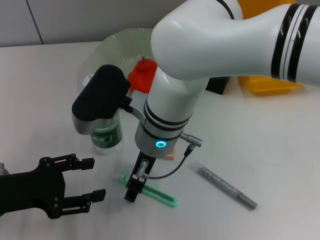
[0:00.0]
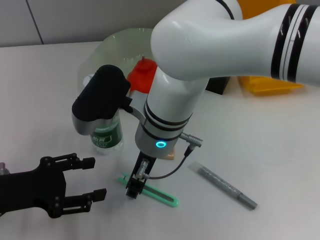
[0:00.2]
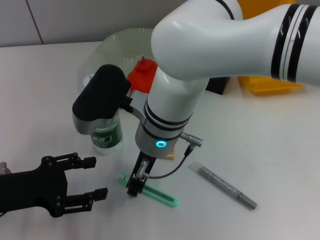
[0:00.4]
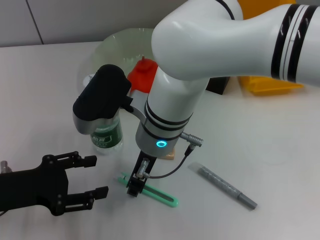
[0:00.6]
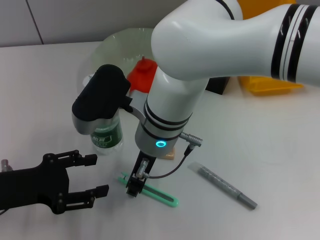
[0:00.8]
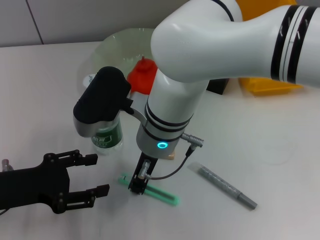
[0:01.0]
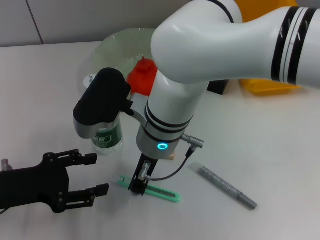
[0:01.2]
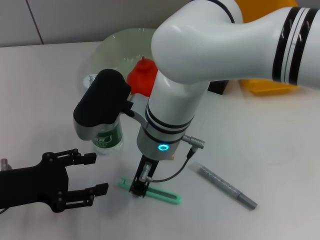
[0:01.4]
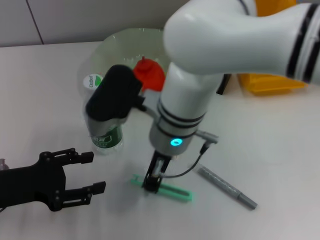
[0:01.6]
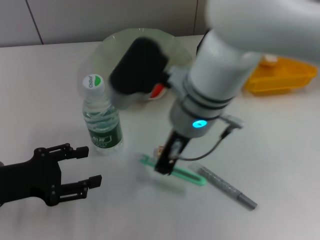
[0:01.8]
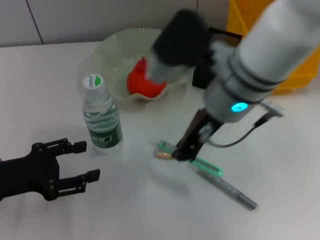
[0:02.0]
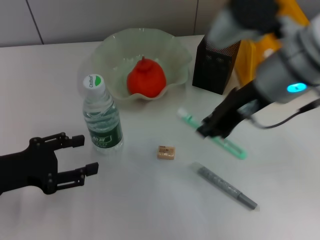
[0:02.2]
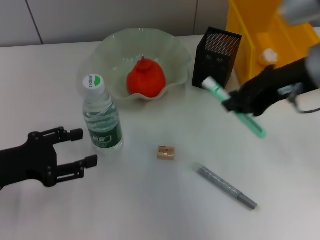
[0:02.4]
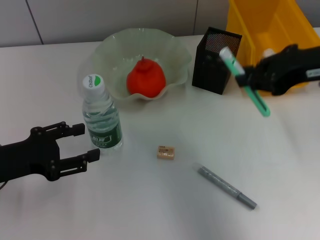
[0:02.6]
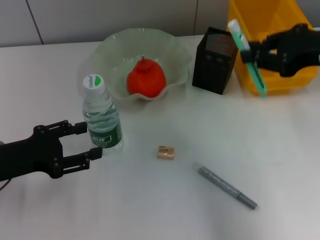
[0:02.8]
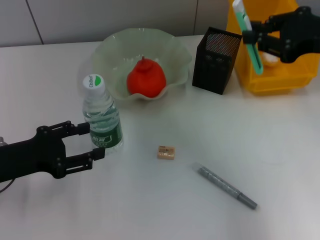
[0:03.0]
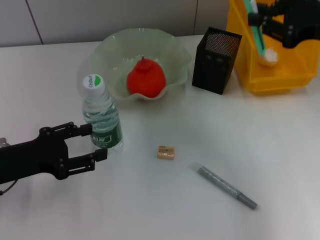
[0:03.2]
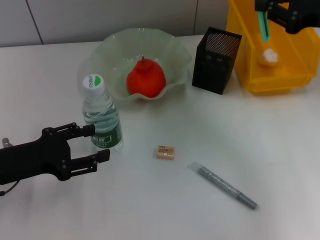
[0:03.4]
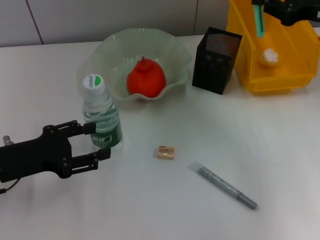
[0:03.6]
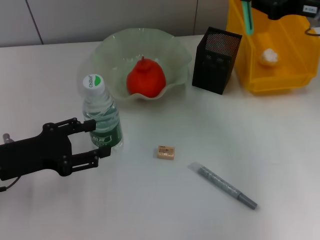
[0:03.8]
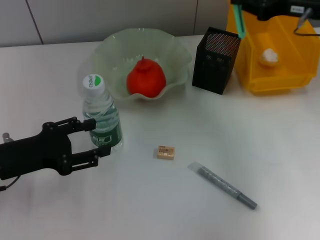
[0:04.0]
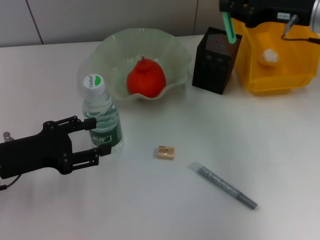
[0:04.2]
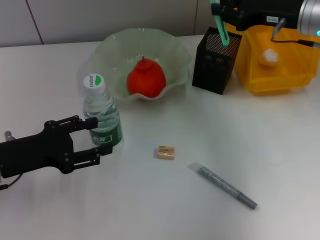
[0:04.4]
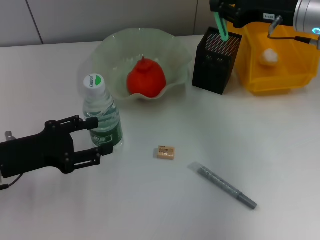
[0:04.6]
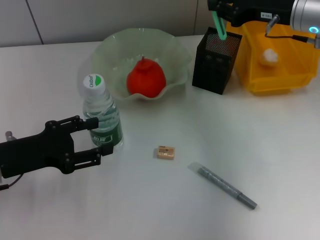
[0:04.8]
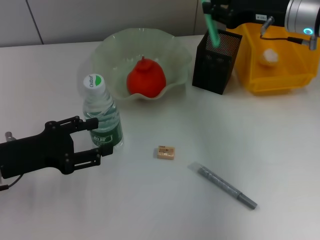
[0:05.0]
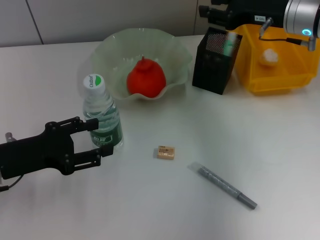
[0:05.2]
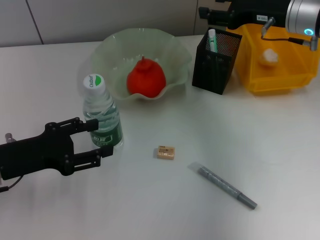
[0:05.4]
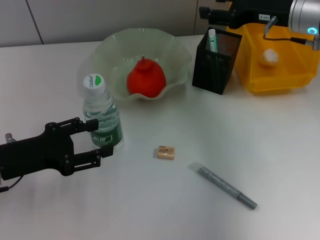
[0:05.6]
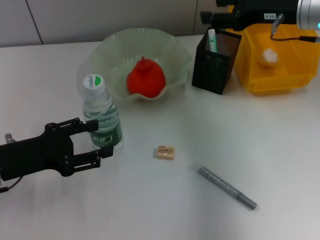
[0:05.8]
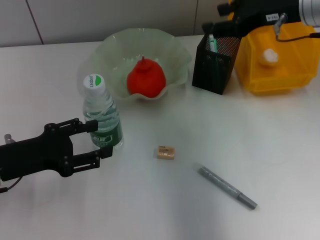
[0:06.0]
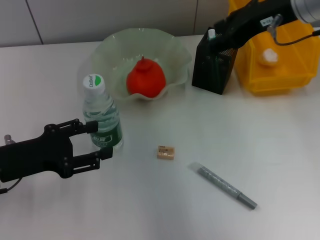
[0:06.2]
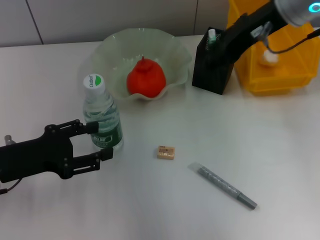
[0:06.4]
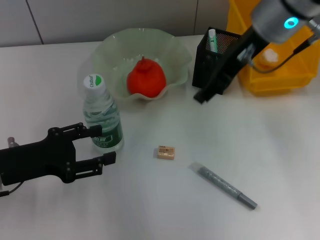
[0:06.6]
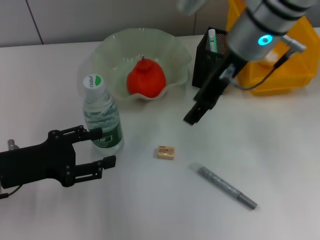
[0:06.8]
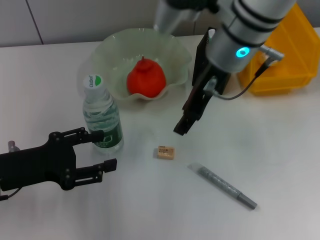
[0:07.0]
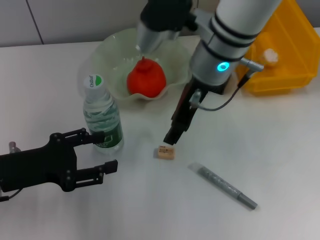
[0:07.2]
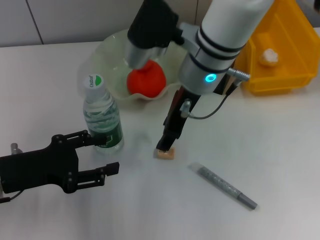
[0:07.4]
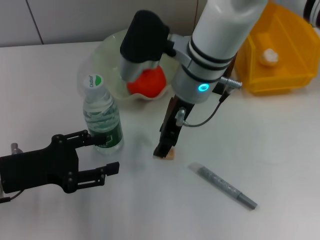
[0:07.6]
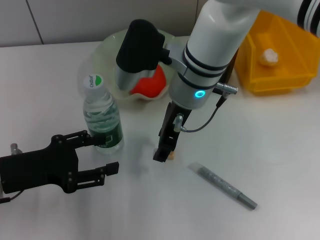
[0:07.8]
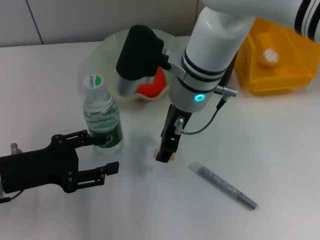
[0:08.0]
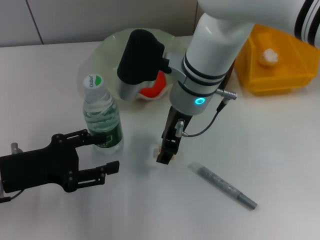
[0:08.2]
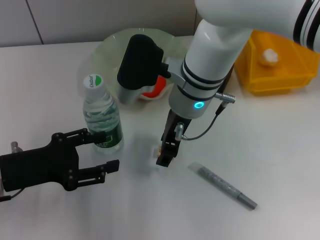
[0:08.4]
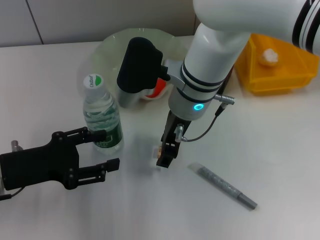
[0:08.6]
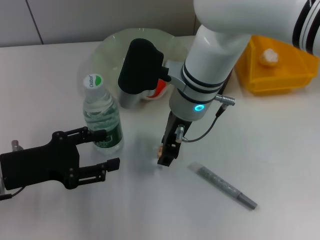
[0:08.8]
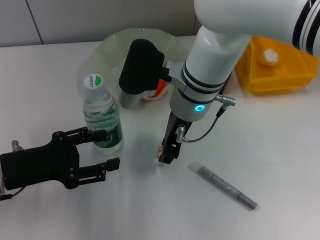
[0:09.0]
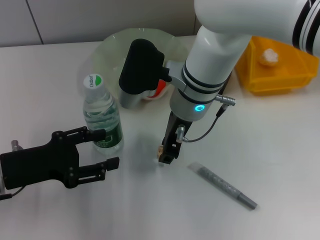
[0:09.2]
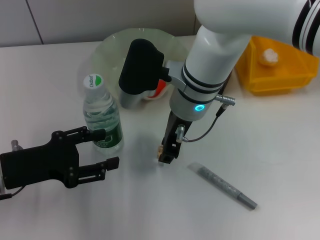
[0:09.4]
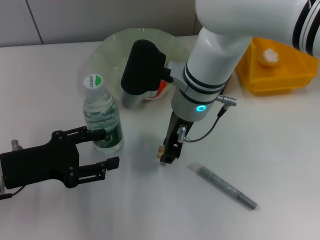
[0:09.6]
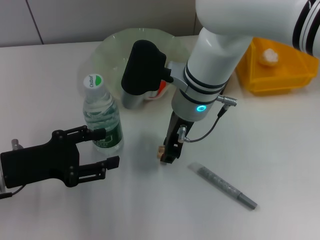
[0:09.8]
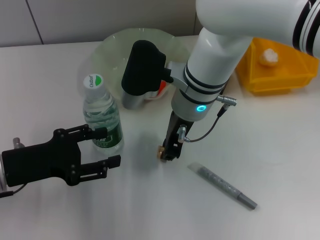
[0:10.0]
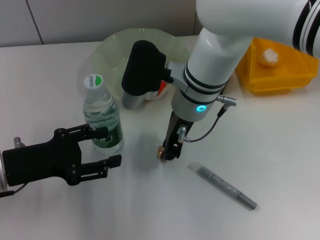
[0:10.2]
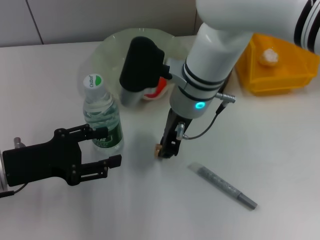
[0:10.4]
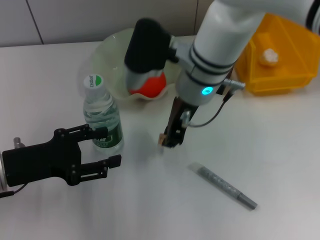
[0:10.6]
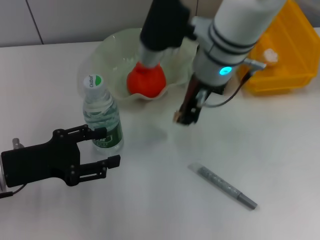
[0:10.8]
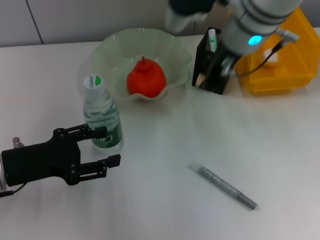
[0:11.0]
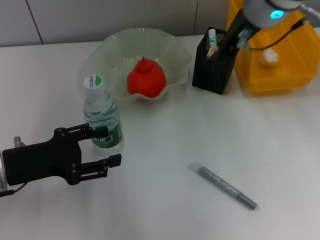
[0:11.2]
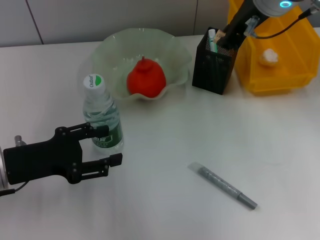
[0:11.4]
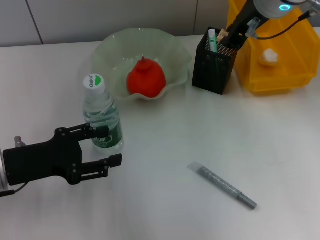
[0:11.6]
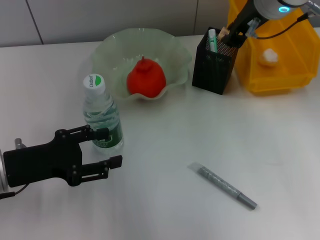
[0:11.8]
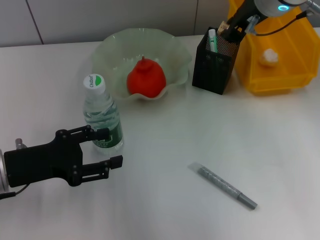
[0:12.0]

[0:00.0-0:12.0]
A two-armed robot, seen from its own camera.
Step, 0:01.2 to 0:05.2: Place the blue utility knife into the pen holder with the right hand.
Step, 0:05.4 to 0:09.8: Grab the eraser with the right hand.
0:00.0 to 0:01.6: The right gripper closes up.
0:01.6 to 0:03.0: The right gripper travels to the right by some 30 cm.
0:03.0 to 0:04.4: The right gripper goes some 10 cm forward.
0:04.4 to 0:06.0: The right gripper is displaced upward by approximately 5 cm, and opens up.
0:06.0 to 0:07.6: The right gripper travels to the left by about 20 cm.
0:07.6 to 0:09.0: There are only small adjustments of the grippers.
0:09.0 to 0:10.4: The right gripper closes.
0:10.4 to 0:12.0: The right gripper heads to the right, upward and forward, covering some 15 cm.

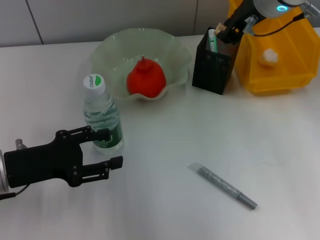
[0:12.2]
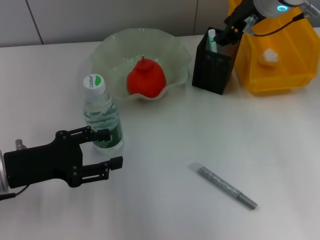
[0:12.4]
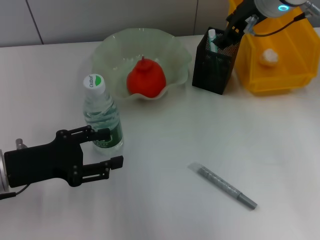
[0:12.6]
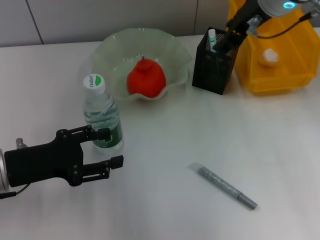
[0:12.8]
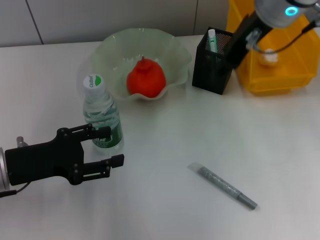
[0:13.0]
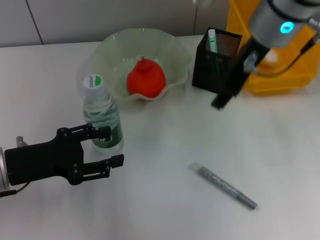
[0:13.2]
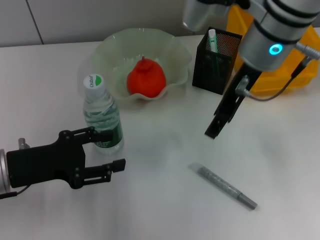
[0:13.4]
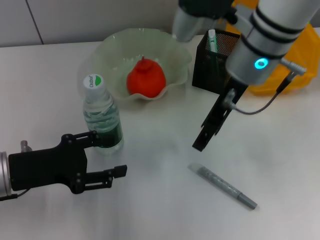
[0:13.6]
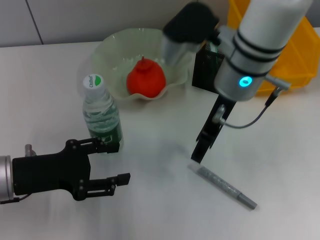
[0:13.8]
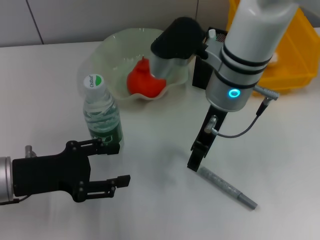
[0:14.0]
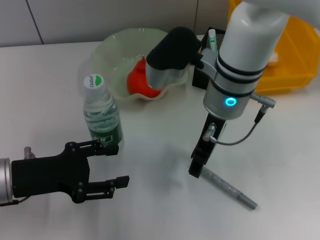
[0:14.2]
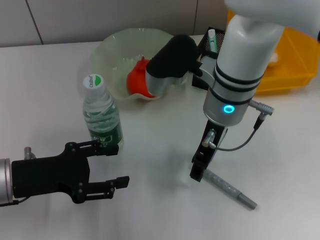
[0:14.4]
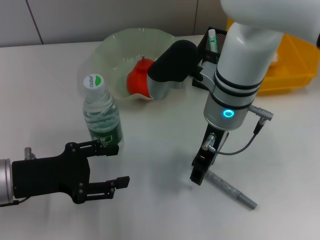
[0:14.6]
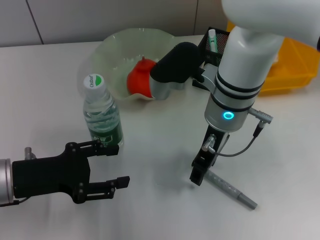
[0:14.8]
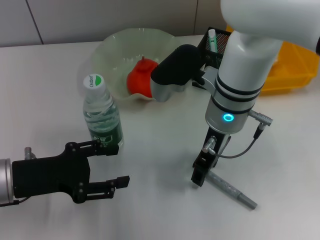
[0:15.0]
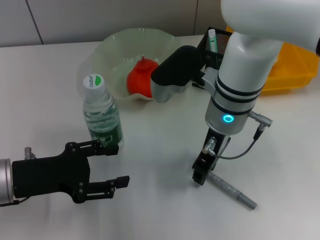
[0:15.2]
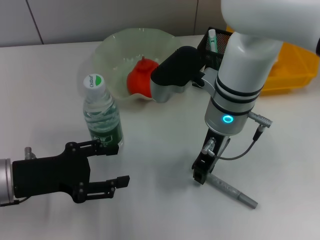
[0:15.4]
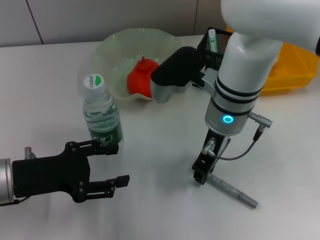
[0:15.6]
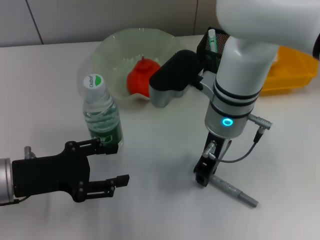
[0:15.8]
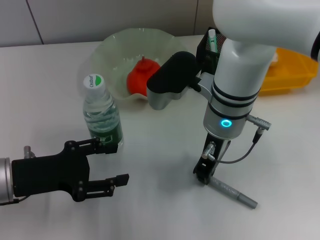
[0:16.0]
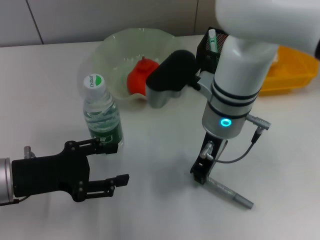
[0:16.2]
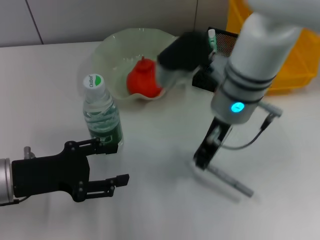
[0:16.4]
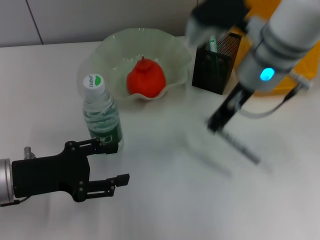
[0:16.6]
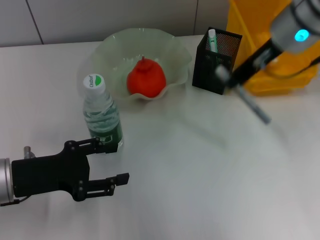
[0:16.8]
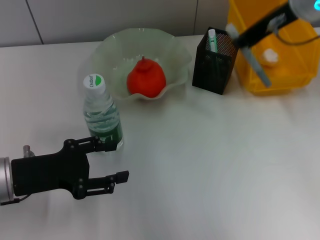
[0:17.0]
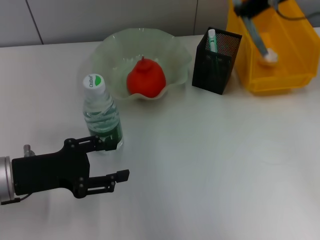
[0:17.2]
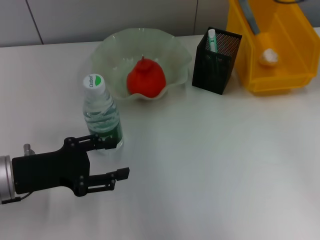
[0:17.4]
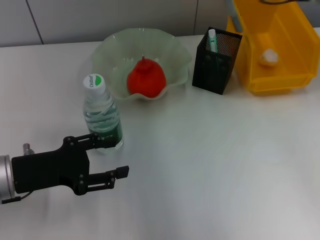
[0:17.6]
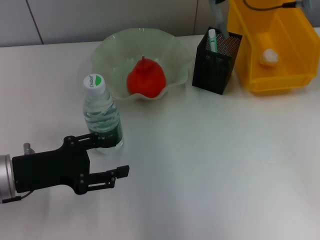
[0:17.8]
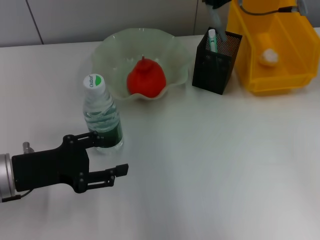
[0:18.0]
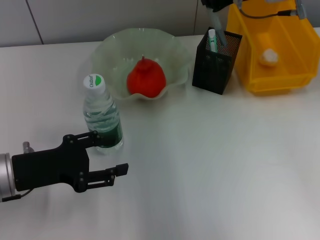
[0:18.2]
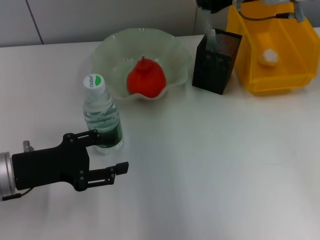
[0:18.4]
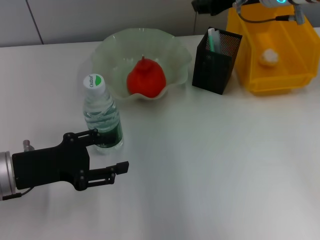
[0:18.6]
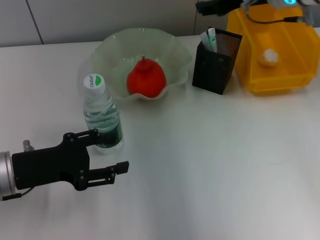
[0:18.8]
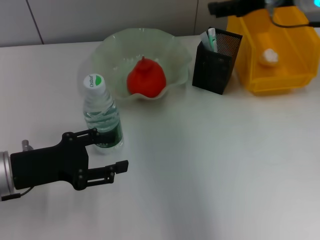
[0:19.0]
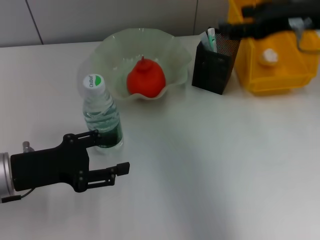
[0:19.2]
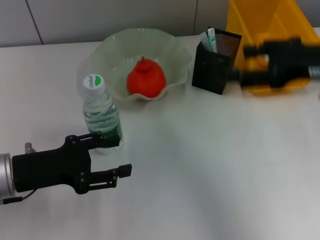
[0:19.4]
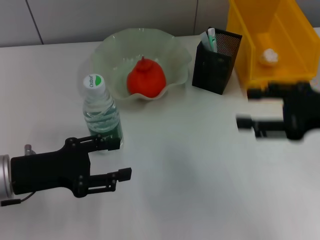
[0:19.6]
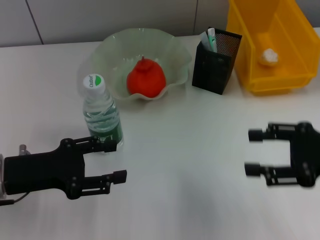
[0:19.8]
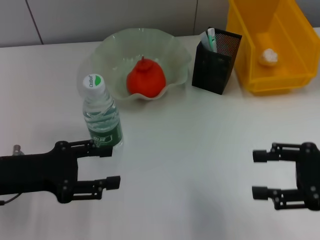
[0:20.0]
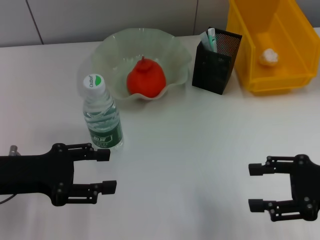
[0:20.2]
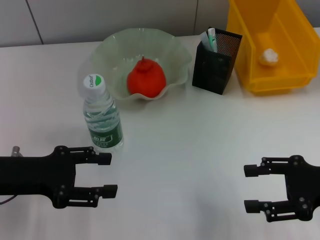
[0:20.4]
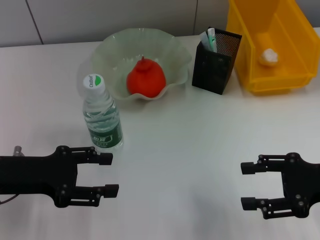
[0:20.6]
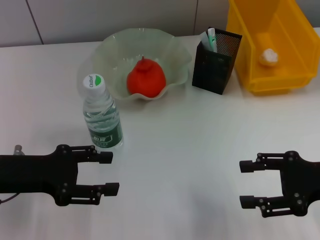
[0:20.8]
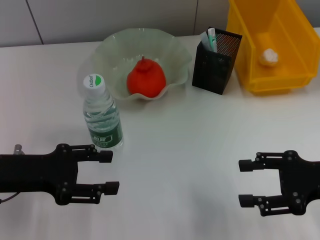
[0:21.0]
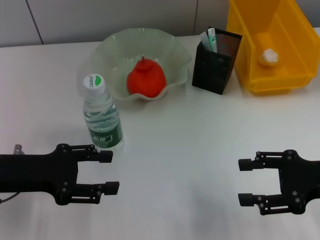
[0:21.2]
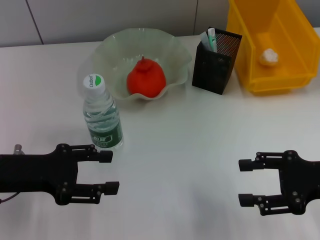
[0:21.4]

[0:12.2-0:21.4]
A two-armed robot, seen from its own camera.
Step, 0:12.6 to 0:15.2: Grab the gray glue with the right hand.
Step, 0:15.4 to 0:18.4: Place the gray glue into the pen holder with the right hand.
0:12.2 to 0:13.8: The right gripper moves to the left and backward, roughly 10 cm, and opens up.
0:13.8 to 0:15.2: The right gripper moves approximately 5 cm.
0:15.2 to 0:16.8: The right gripper moves upward and to the right, about 15 cm, and closes.
0:16.8 to 0:18.4: The right gripper is displaced forward by roughly 5 cm.
0:18.4 to 0:19.8: The right gripper goes roughly 25 cm backward, to the right and downward, and opens up.
0:19.8 to 0:21.4: The grippers make only small movements.

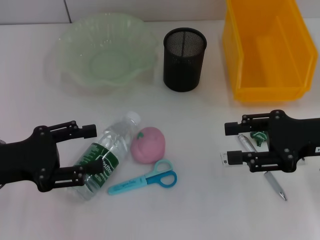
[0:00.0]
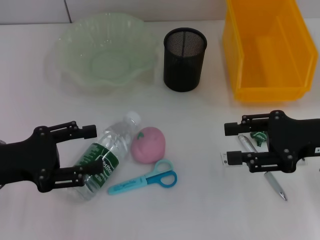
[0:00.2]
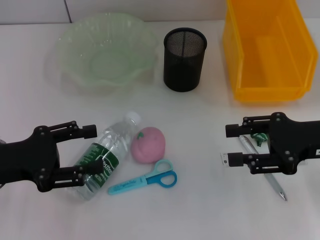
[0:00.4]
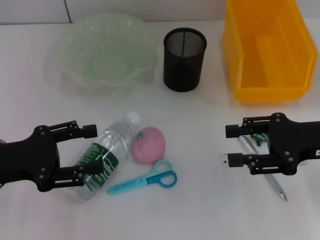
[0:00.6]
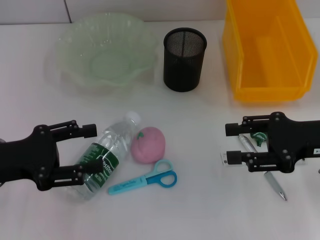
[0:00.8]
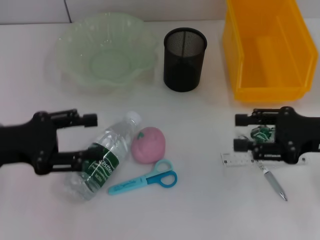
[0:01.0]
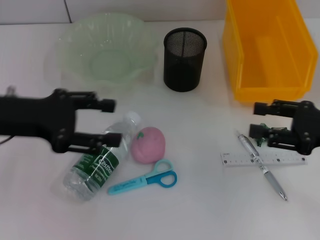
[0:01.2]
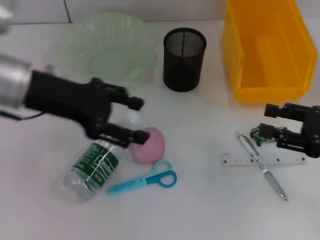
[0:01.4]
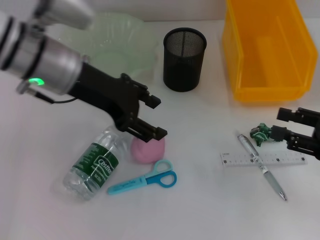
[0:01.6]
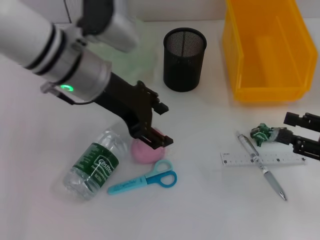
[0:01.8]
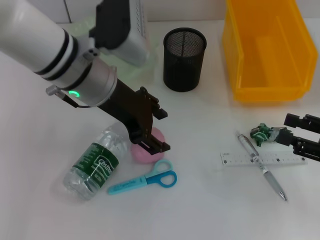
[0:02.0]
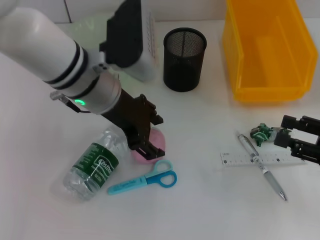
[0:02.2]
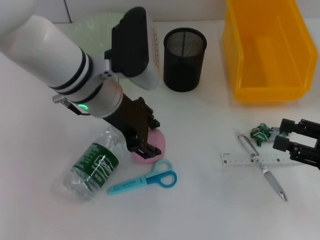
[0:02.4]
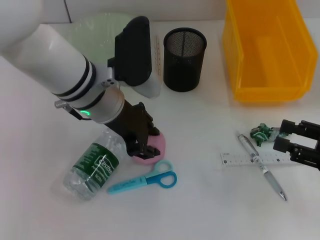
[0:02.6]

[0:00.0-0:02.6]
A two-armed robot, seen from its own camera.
0:00.0 to 0:01.2: The left gripper goes about 5 cm upward.
0:01.2 to 0:02.6: The right gripper shifts by about 5 cm; the left gripper moves to the right, approximately 15 cm.
